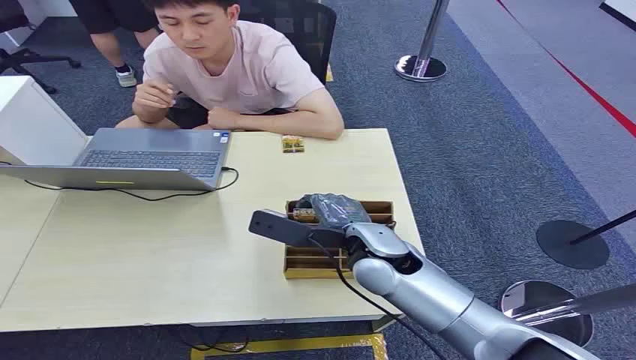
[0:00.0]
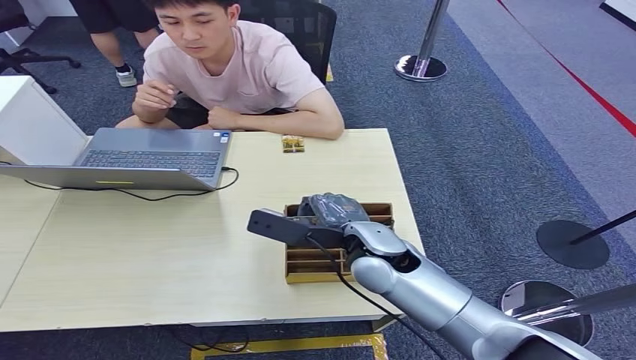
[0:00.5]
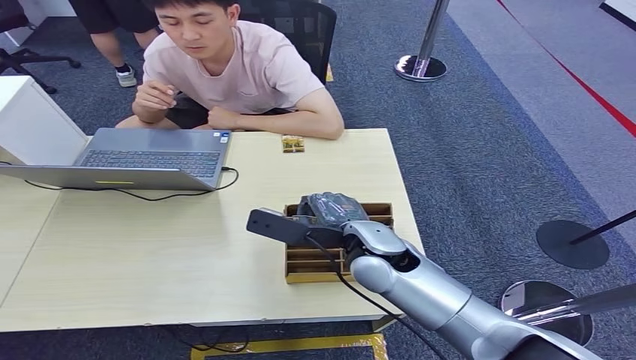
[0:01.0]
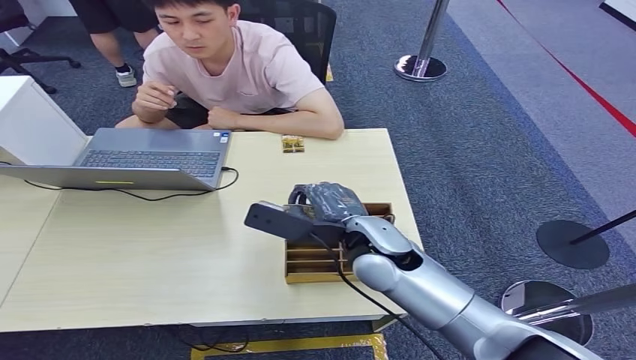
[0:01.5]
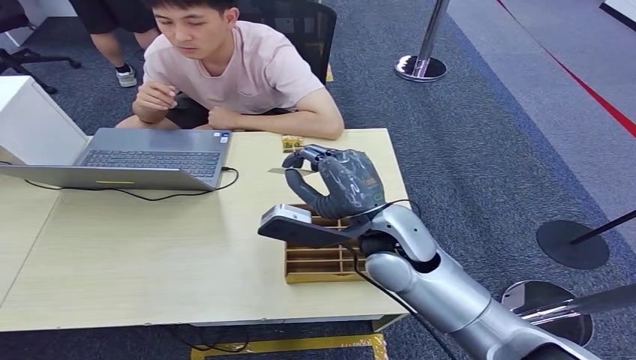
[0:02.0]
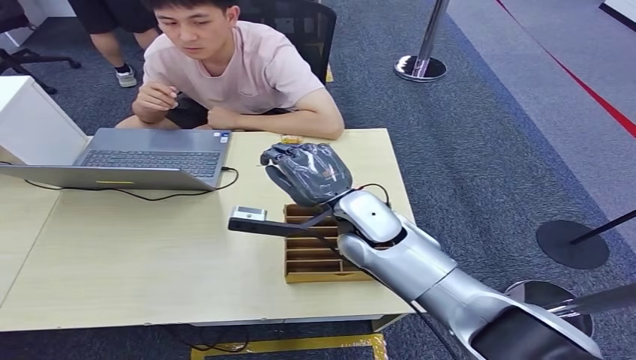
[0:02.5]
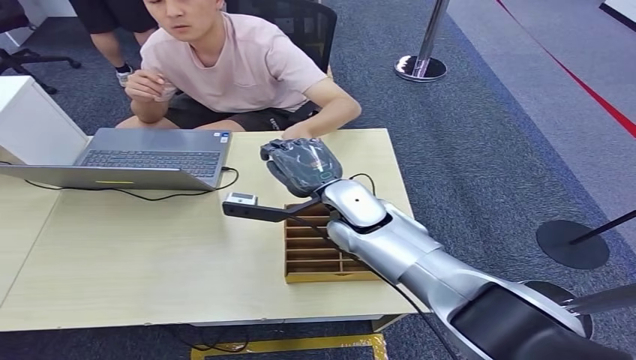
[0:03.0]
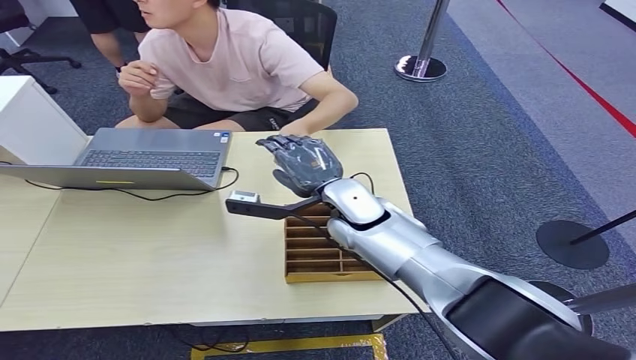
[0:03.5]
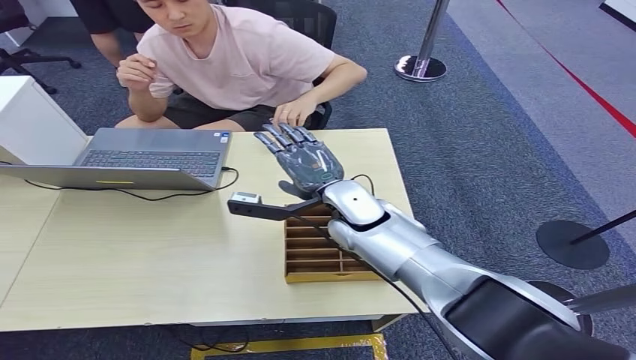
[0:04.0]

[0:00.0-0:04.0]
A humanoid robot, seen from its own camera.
Step, 0:00.0 to 0:02.0: Pick up the key card from the card box.
Step, 0:02.5 to 0:04.0: Hand the key card to the target.
0:02.0 to 0:04.0: The right hand goes approximately 10 cm forward.

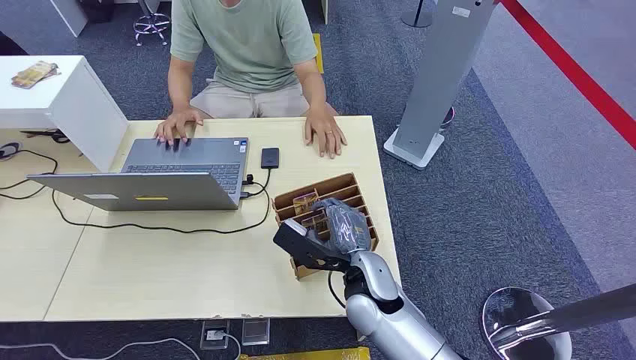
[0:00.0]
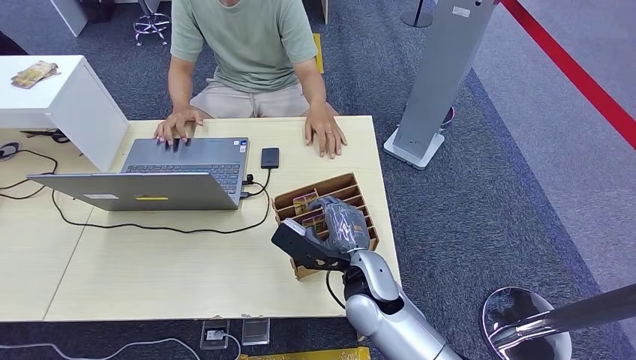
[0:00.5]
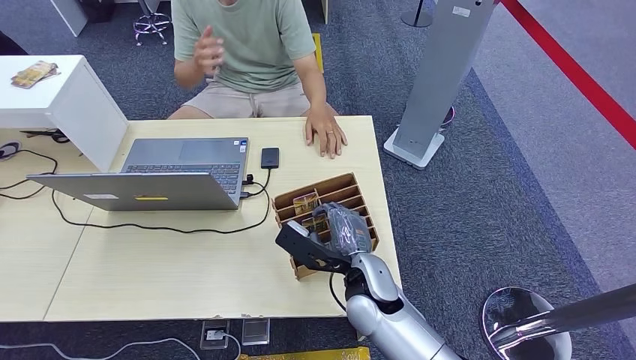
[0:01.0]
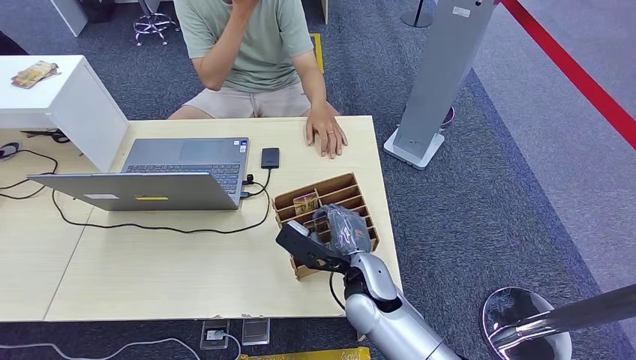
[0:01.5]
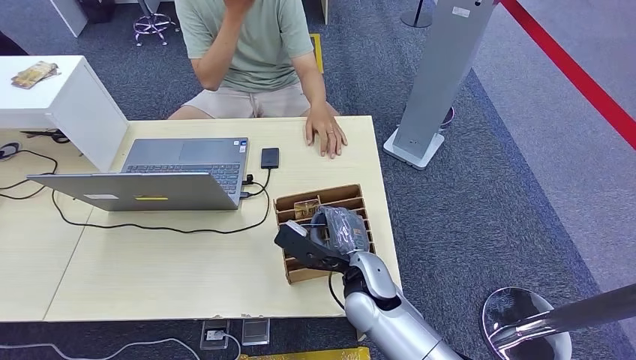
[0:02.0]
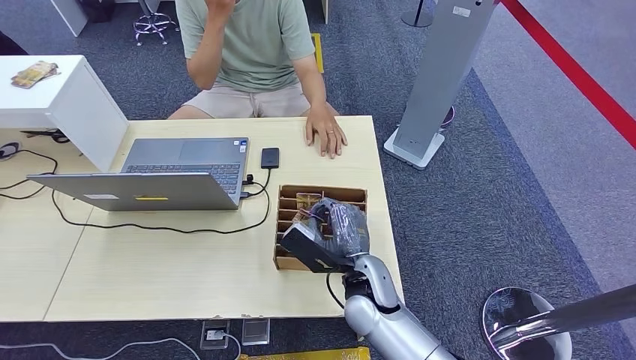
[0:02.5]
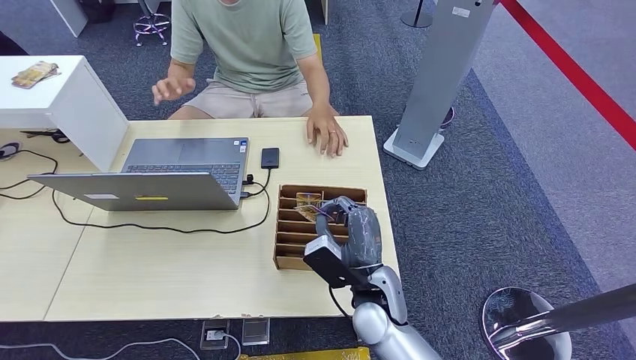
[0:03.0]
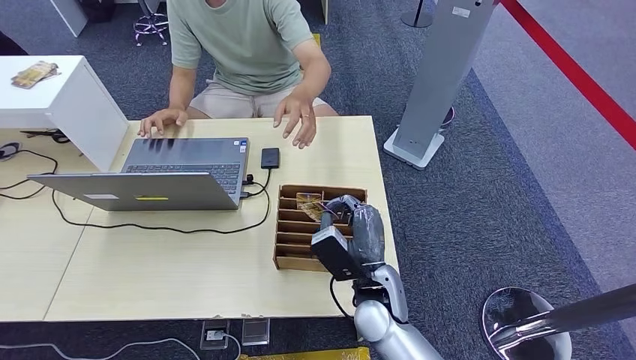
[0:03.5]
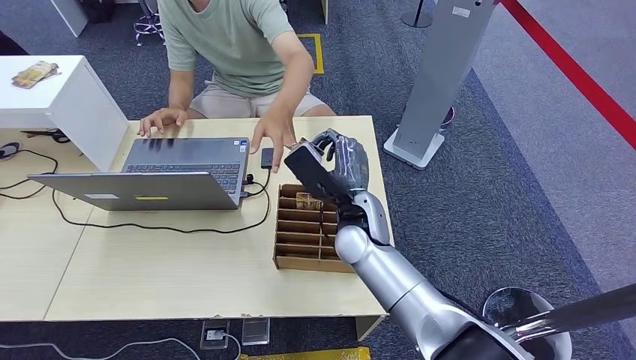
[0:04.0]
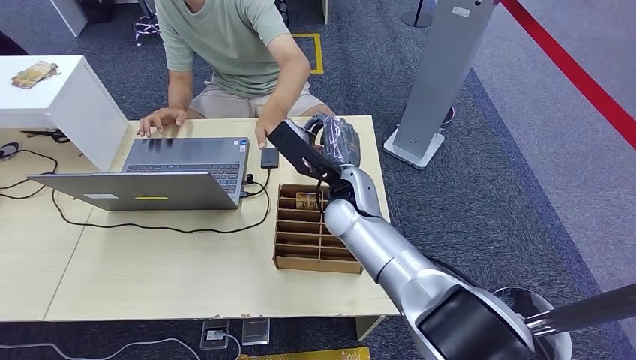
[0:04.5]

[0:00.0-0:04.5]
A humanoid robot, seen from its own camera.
Step, 0:00.0 to 0:02.5: Pick up the key card from the card box.
Step, 0:03.5 to 0:04.5: Hand the key card to the target.
0:02.0 to 0:04.5: The right hand moves forward and upward, roughly 15 cm.
